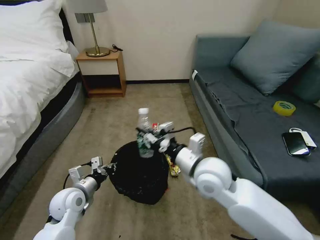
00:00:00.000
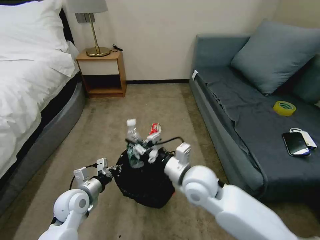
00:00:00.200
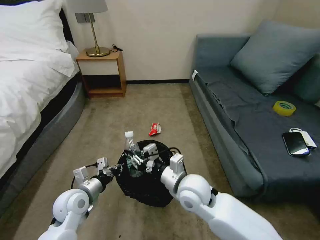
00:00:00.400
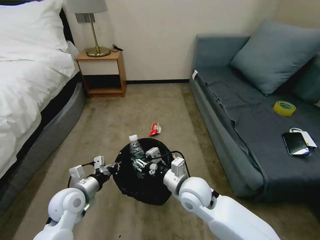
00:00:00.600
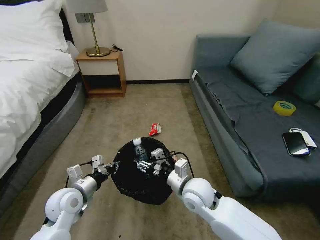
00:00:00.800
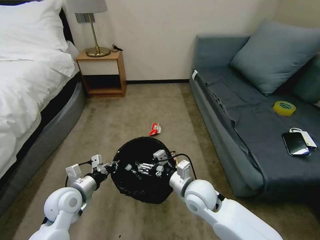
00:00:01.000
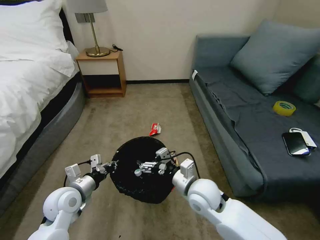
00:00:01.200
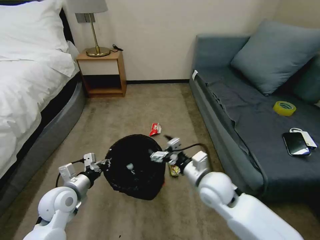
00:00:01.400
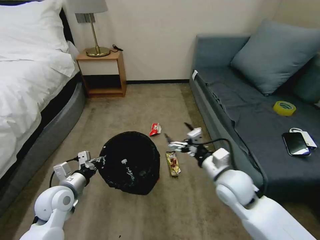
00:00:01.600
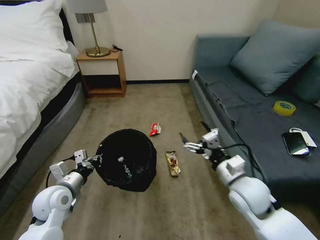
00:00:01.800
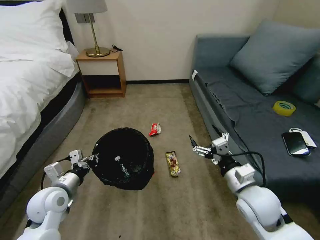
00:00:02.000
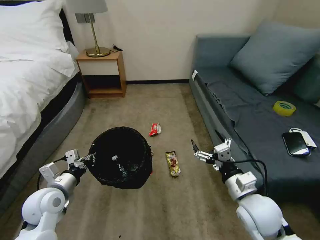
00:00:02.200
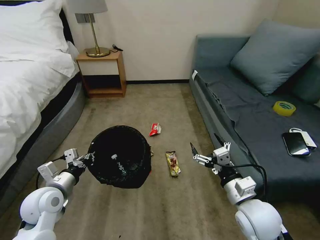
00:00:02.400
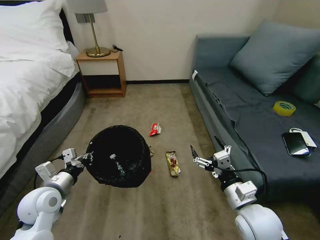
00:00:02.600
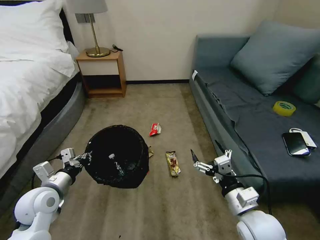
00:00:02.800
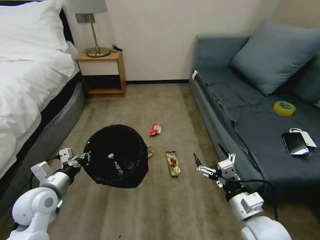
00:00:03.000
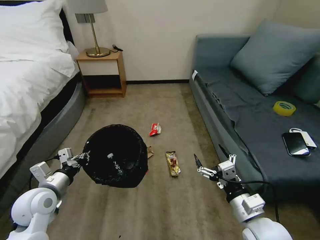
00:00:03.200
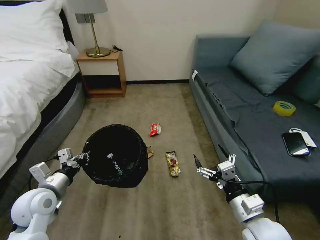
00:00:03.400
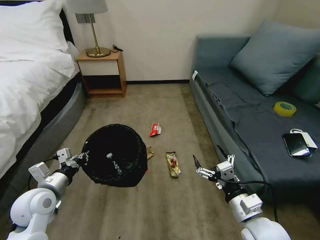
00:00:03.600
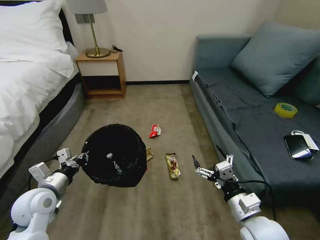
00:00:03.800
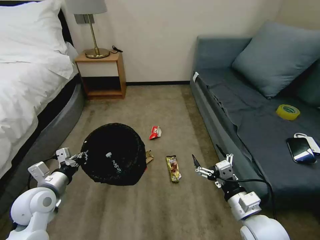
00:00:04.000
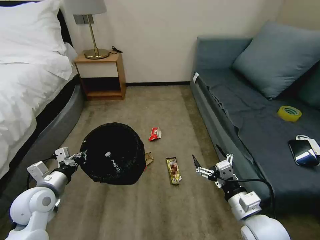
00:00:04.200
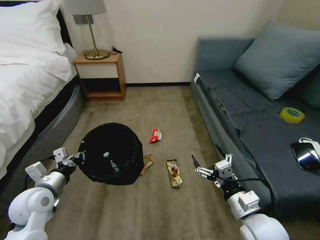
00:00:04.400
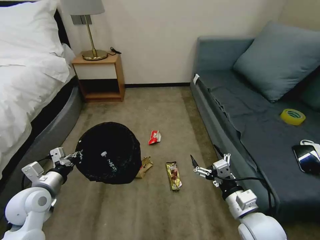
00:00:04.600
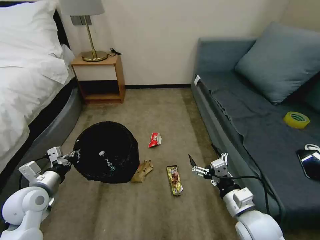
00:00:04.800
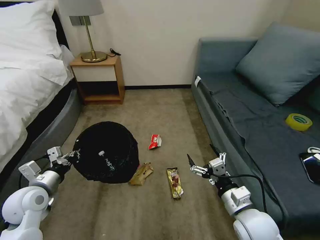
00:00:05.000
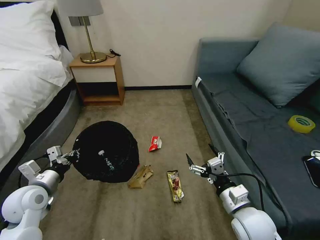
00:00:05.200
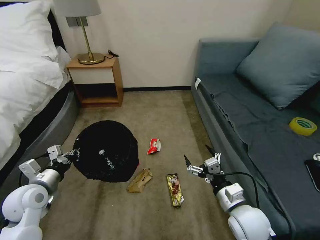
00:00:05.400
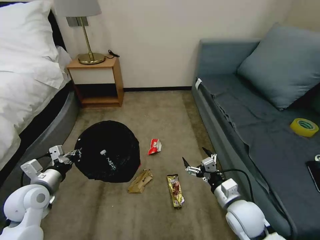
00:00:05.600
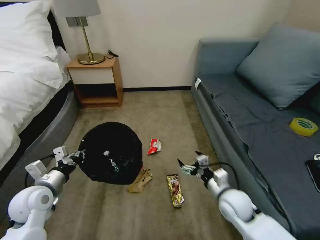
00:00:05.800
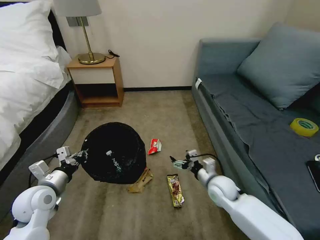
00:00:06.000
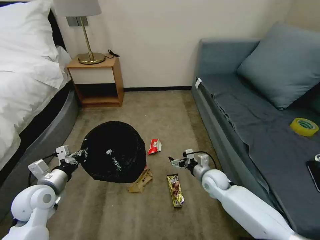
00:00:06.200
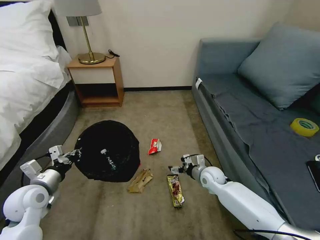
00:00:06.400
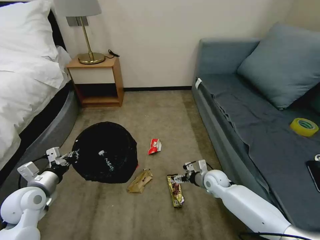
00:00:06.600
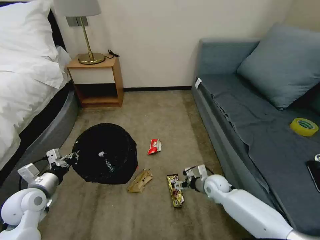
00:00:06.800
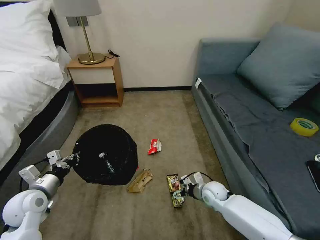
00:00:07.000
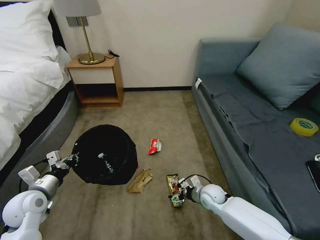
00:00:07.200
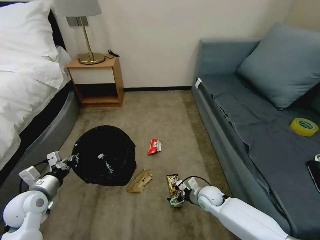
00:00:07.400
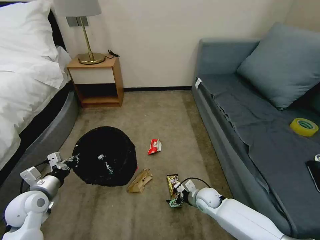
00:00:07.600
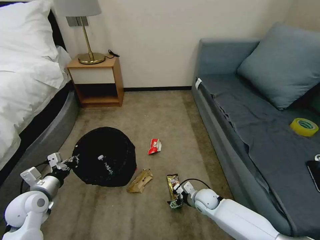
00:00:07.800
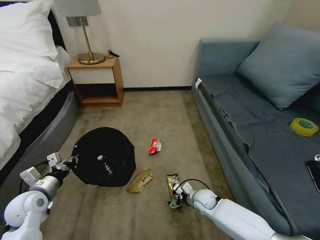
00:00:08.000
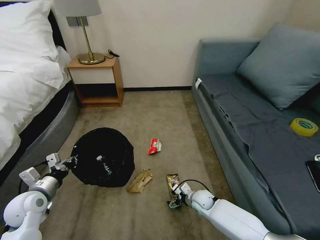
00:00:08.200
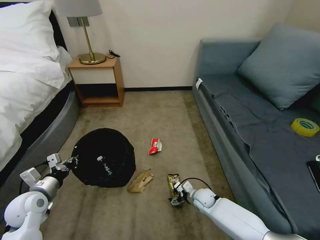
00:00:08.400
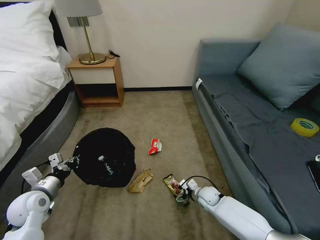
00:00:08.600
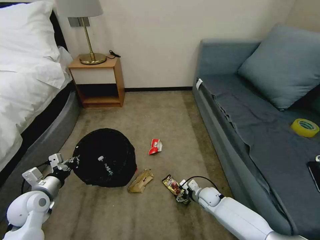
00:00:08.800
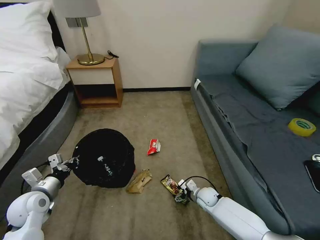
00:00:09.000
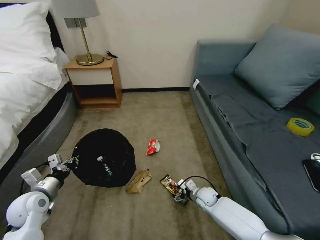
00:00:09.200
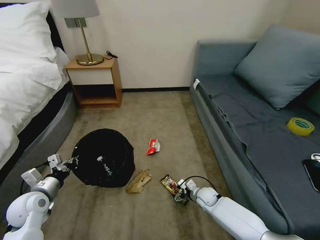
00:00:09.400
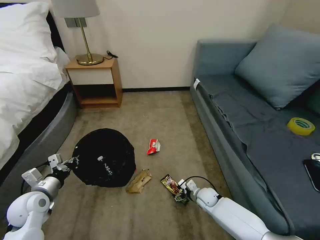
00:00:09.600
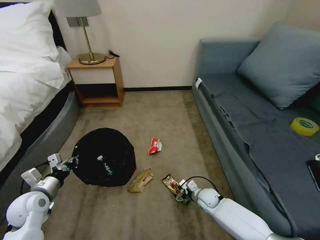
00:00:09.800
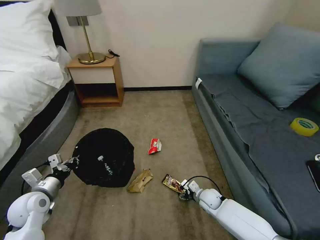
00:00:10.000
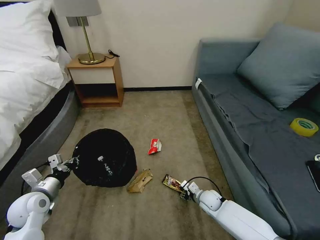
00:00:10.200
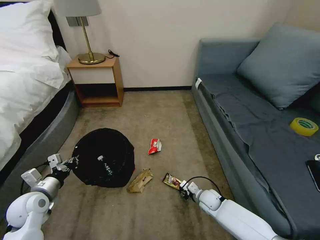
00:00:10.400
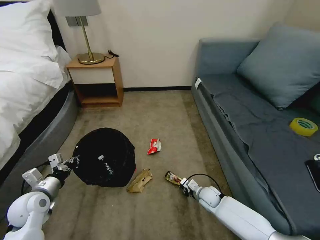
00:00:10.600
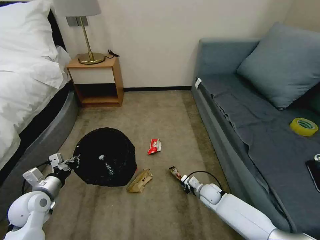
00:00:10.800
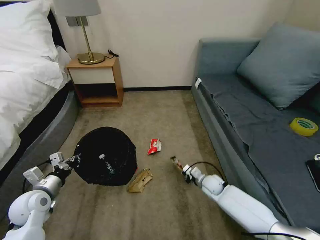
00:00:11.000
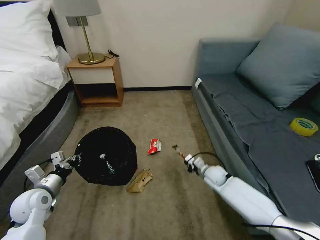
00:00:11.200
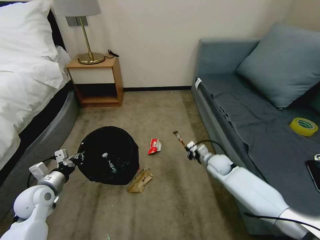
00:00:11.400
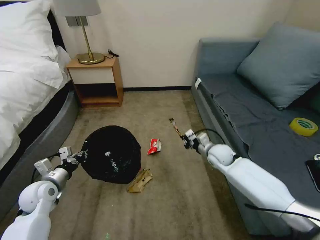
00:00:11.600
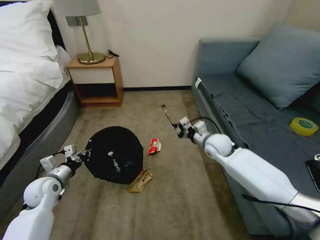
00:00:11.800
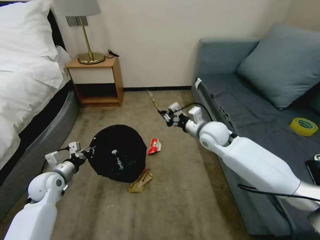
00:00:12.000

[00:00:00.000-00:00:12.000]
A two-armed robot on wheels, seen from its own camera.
Task of the whole recording: Pick up the trash bin, then pick up the garbage on the floor and place it into the trash bin.
00:00:00.000 to 00:00:01.600: The right gripper heads to the right and downward, covering approximately 10 cm, and opens up.
00:00:01.600 to 00:00:03.000: The right gripper is displaced backward by about 10 cm.
00:00:03.000 to 00:00:04.400: Both grippers stay put.
00:00:04.400 to 00:00:06.000: The right gripper travels forward and downward by roughly 15 cm.
00:00:06.000 to 00:00:07.600: The right gripper travels downward by some 10 cm.
00:00:07.600 to 00:00:09.000: The right gripper goes roughly 5 cm downward.
00:00:09.000 to 00:00:10.400: The right gripper closes.
00:00:10.400 to 00:00:12.000: The right gripper moves upward, approximately 30 cm. The left gripper shifts some 5 cm forward.

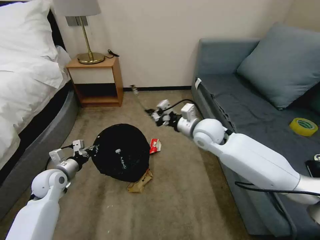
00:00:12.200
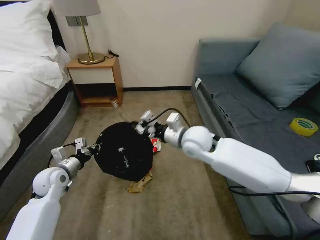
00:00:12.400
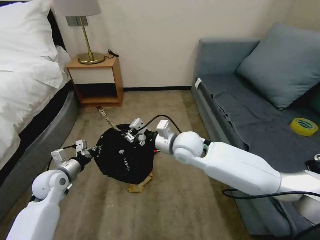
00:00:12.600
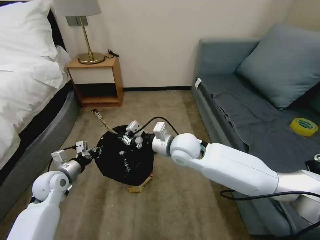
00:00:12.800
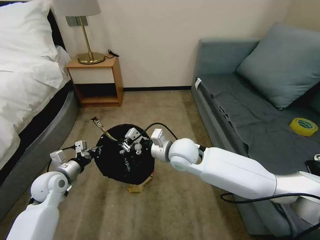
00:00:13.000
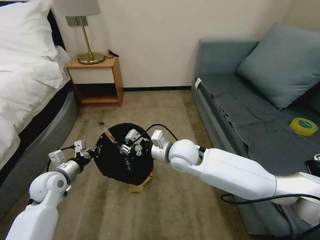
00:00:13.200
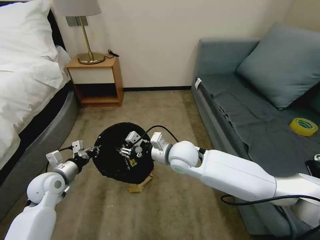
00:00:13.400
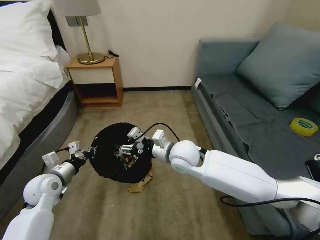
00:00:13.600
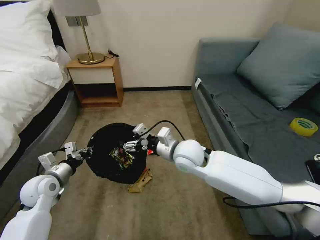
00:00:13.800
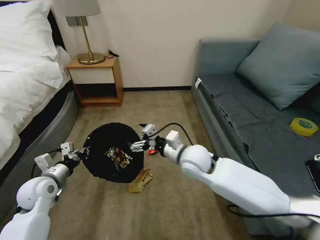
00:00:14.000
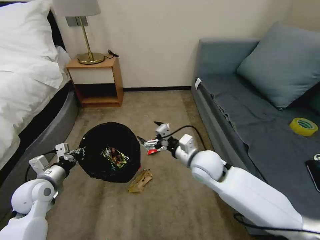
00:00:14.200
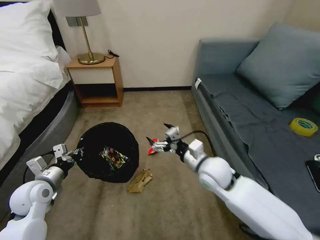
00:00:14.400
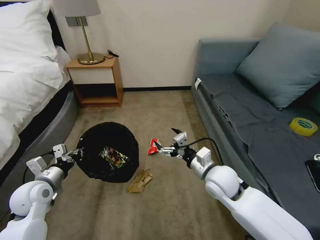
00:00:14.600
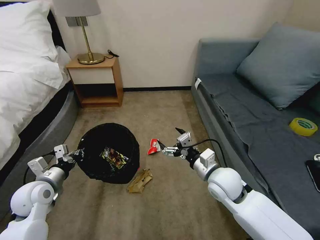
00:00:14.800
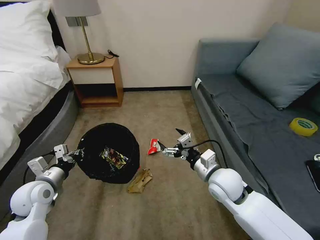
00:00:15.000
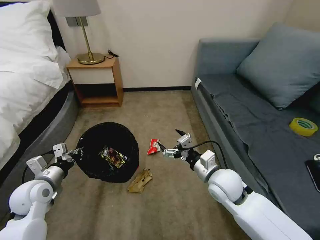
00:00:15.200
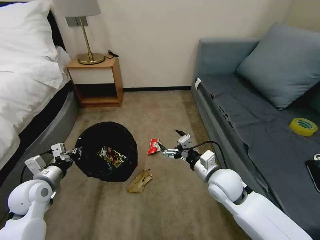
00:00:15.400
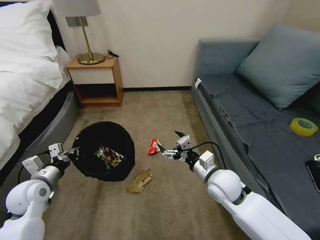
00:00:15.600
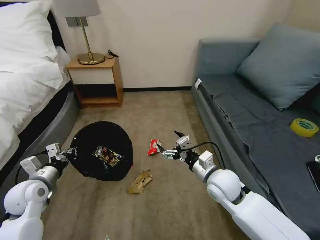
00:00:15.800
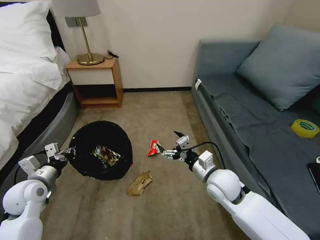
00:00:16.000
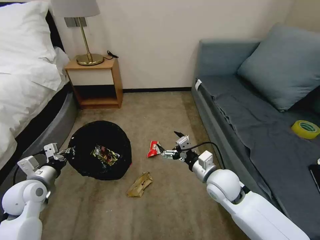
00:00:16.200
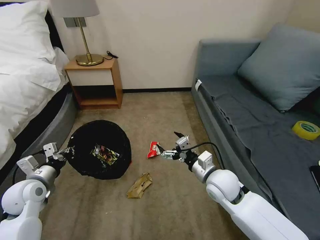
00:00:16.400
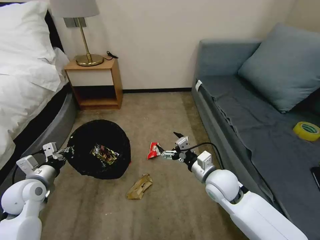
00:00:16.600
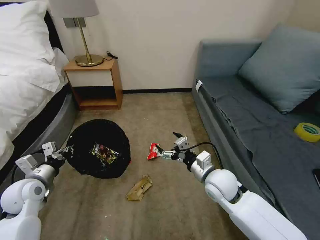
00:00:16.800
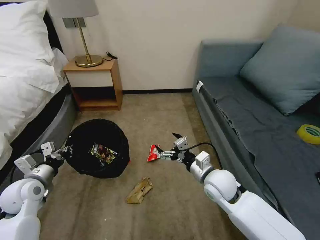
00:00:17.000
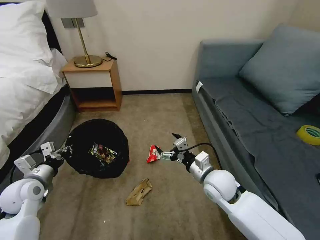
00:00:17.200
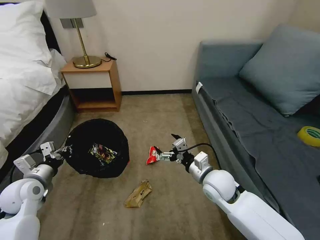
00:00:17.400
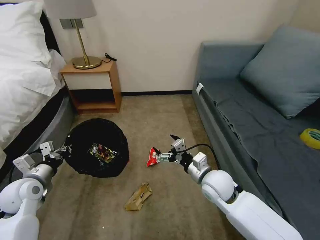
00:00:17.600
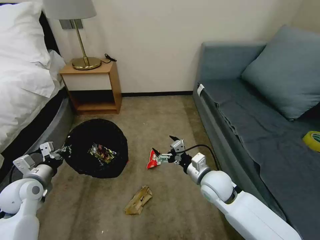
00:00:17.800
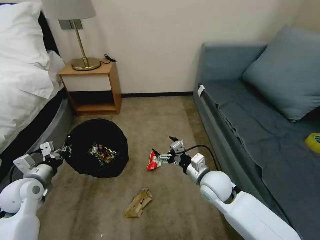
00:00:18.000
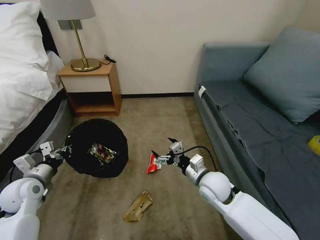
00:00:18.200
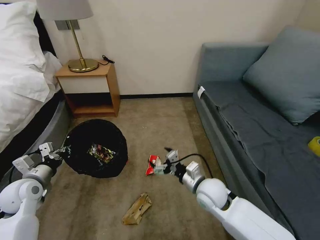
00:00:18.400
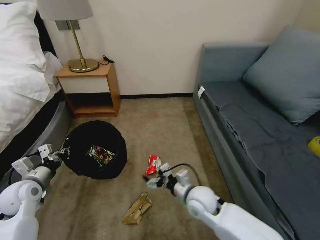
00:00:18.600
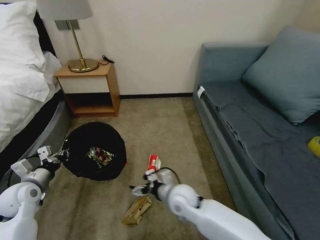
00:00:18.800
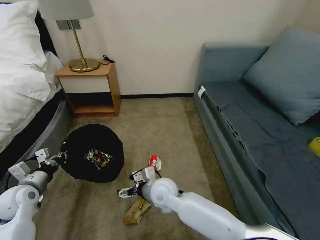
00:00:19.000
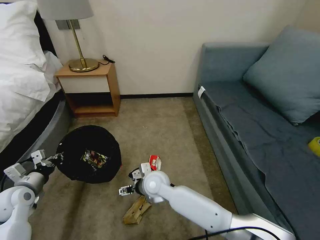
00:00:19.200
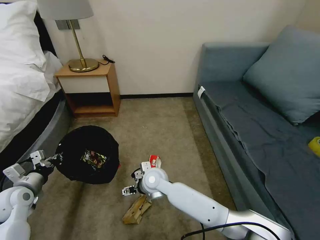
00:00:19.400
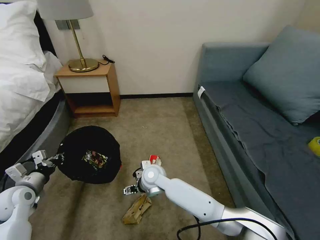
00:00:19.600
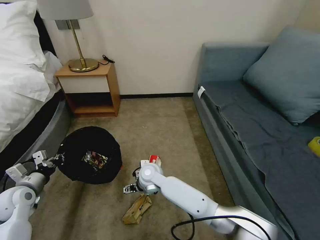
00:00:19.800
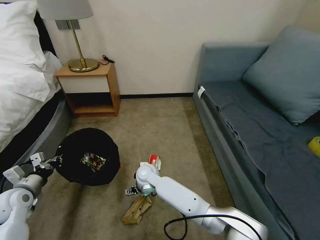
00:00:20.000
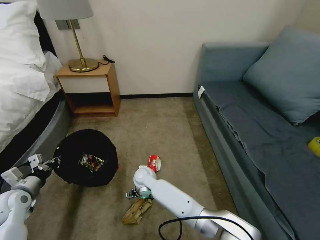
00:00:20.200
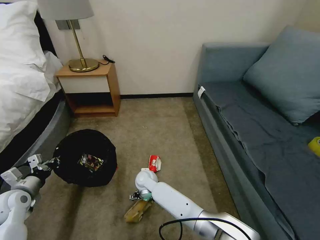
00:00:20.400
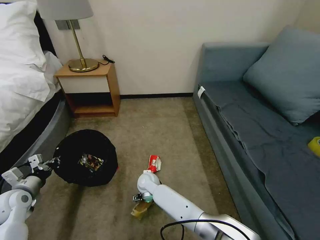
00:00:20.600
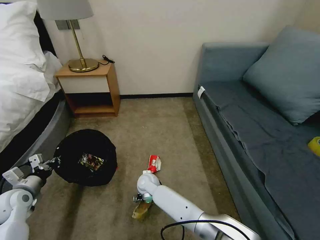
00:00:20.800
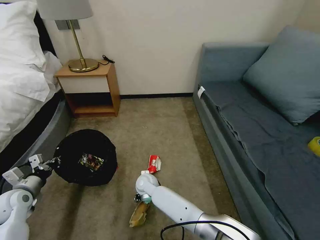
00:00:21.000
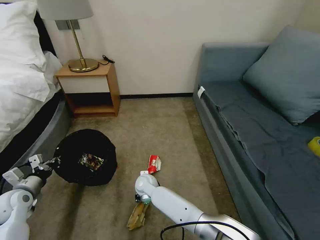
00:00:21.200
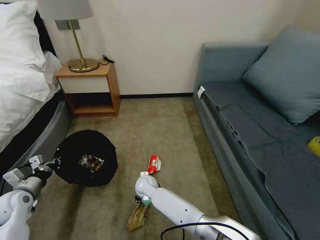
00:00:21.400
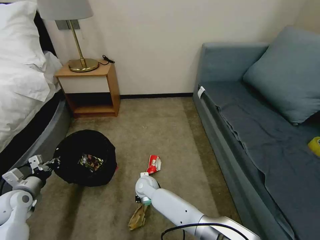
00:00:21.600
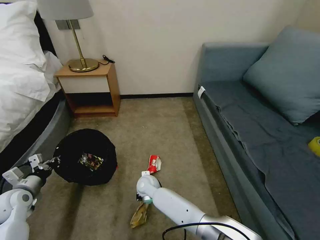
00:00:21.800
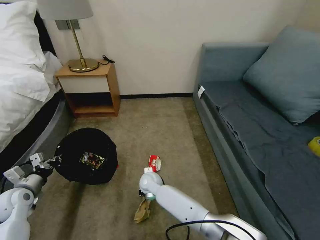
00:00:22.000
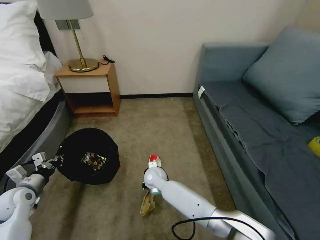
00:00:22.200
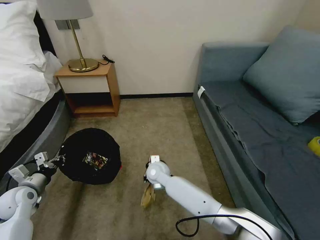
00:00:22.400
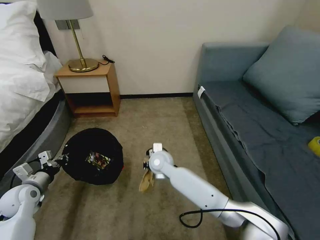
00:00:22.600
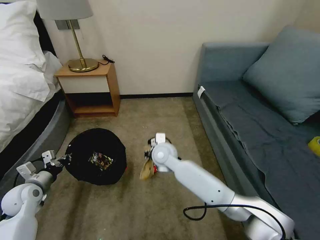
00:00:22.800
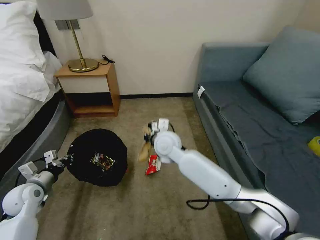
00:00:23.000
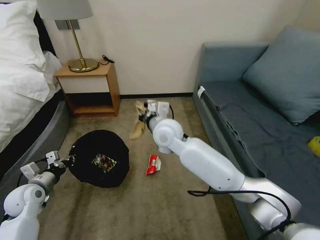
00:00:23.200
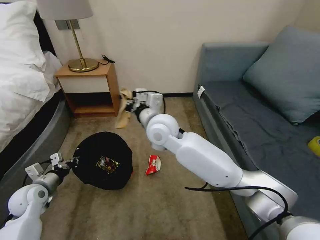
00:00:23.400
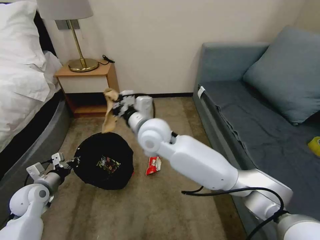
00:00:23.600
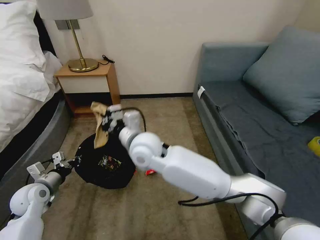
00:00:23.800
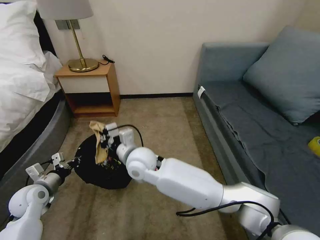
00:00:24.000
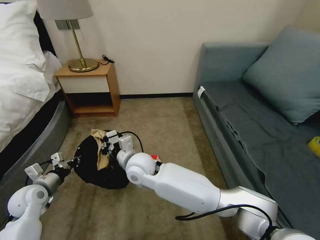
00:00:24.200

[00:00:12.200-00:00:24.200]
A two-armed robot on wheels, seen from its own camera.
Task of the whole recording: Pick up the trash bin, then pick up the garbage on the floor and place it into the trash bin.
00:00:12.200 to 00:00:13.800: The right gripper heads to the left and backward, covering about 10 cm, and opens its fingers.
00:00:13.800 to 00:00:15.200: The right gripper travels to the right, backward and downward by roughly 15 cm.
00:00:15.200 to 00:00:16.600: The grippers make only small movements.
00:00:18.200 to 00:00:19.800: The left gripper ends up roughly 5 cm from where it was. Meanwhile the right gripper goes roughly 20 cm to the left.
00:00:19.800 to 00:00:21.200: The right gripper travels downward by about 10 cm, and closes up.
00:00:21.200 to 00:00:22.600: The right gripper goes approximately 15 cm upward and to the right, and closes.
00:00:22.600 to 00:00:24.200: The right gripper is displaced to the left and backward by roughly 10 cm, and moves roughly 20 cm upward and comes back.
